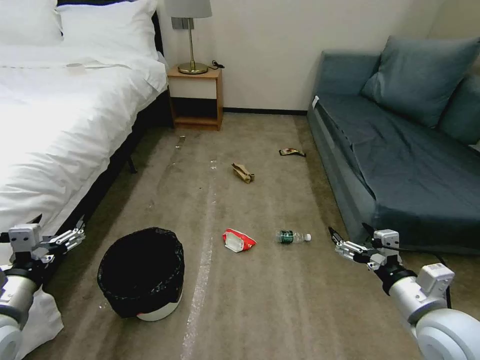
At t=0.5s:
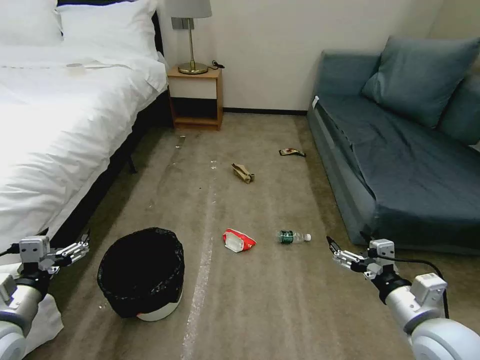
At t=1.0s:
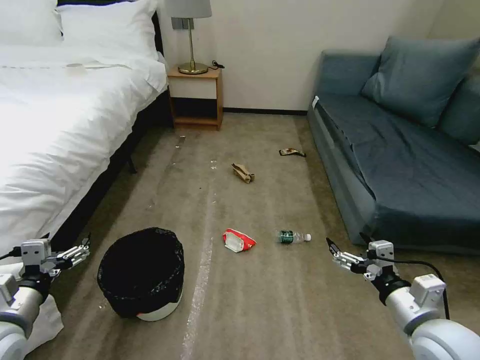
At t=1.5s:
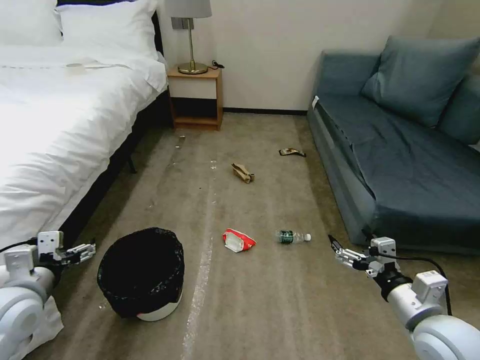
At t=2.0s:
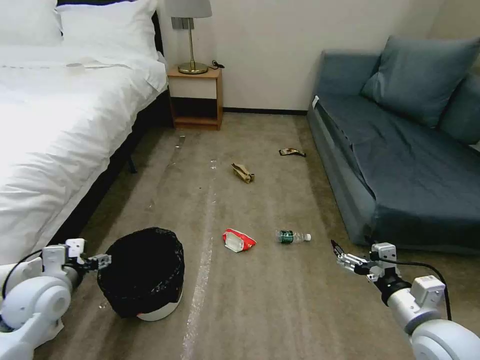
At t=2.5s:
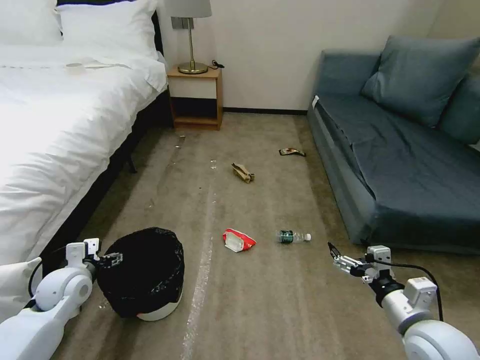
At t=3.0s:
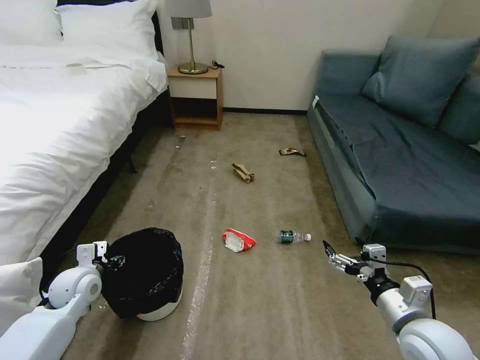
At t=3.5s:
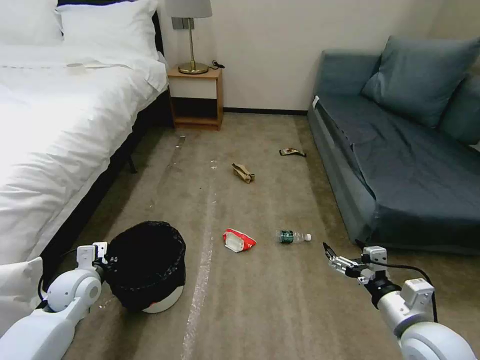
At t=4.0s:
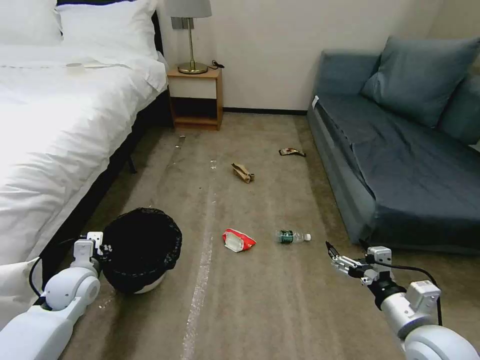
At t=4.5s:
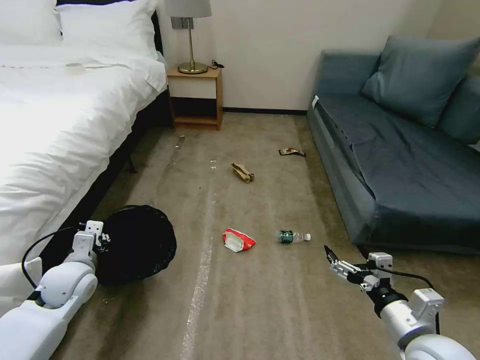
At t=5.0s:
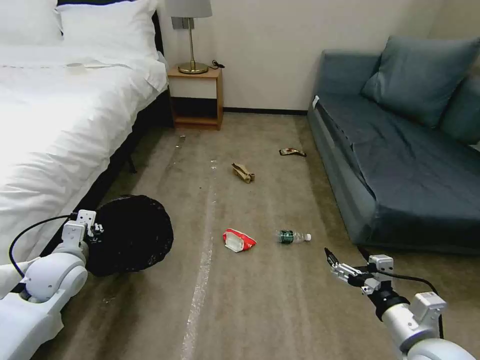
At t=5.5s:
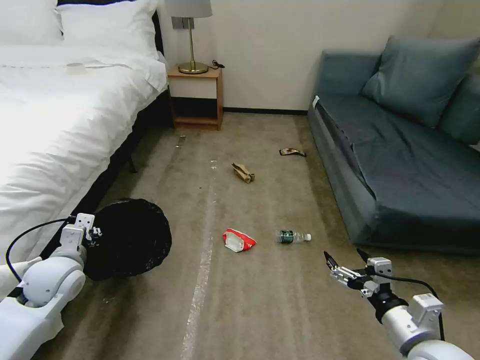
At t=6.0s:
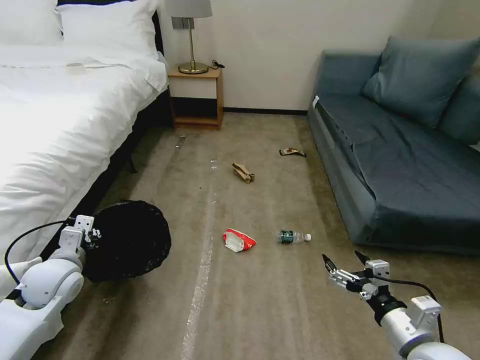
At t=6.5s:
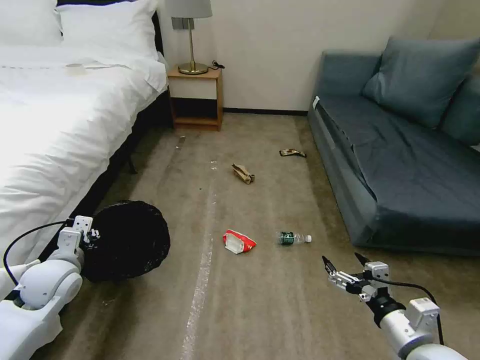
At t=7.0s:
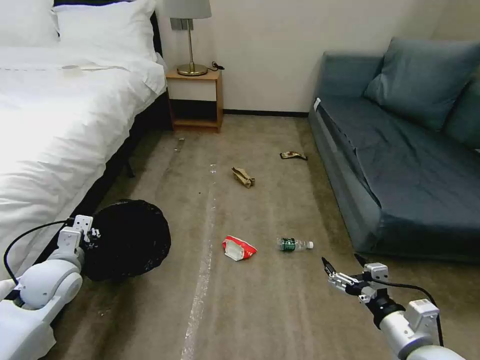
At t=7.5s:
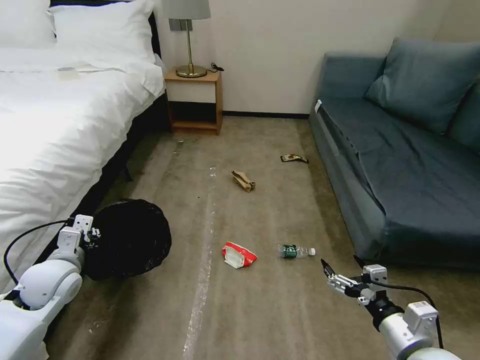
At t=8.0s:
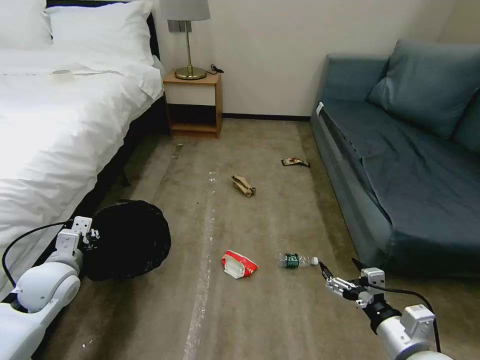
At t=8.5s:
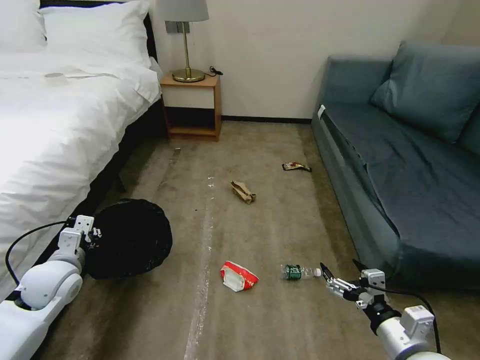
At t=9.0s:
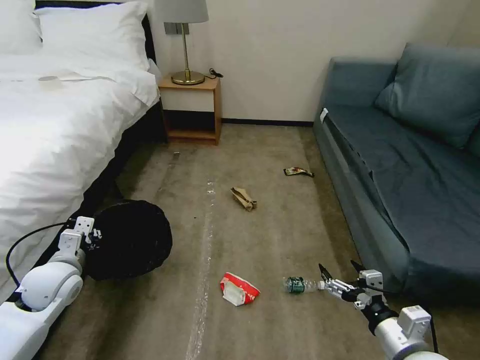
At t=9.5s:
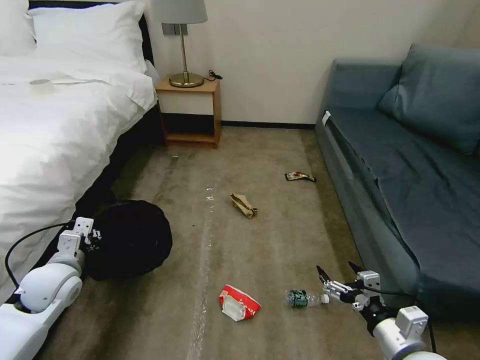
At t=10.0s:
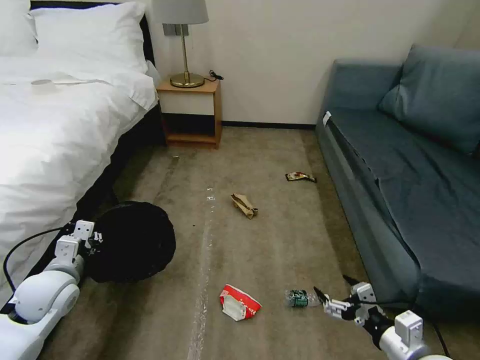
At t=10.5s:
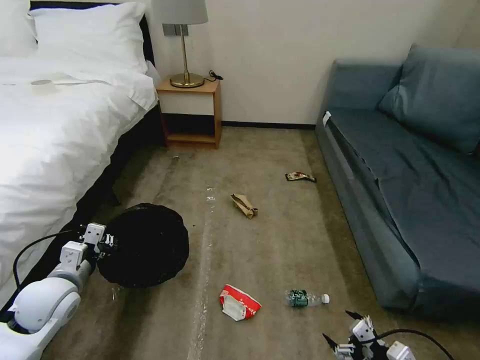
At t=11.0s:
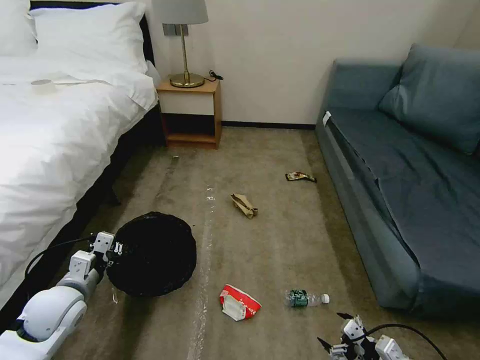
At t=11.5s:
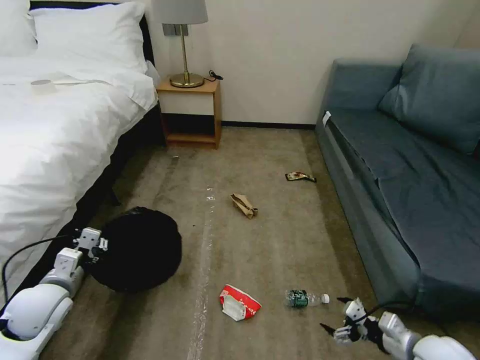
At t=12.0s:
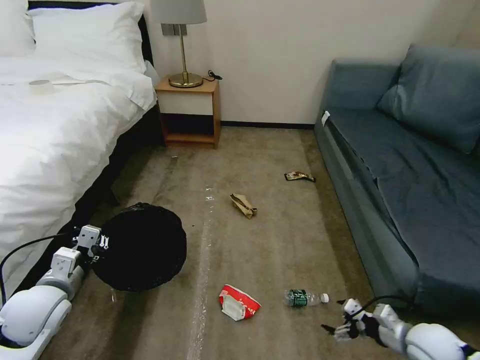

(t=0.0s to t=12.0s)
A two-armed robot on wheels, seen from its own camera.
Task of the whole recording: Pick up the trash bin, then pick up the garbage on the floor and place it into the trash bin.
t=2.0s - t=4.0s: The left gripper is displaced downward by roughly 5 cm, and closes.
t=4.0s - t=6.0s: The left gripper travels upward by some 5 cm.
t=6.0s - t=8.0s: There are only small adjustments of the grippers.
t=10.0s - t=12.0s: The right gripper goes about 15 cm downward, to the right and forward.

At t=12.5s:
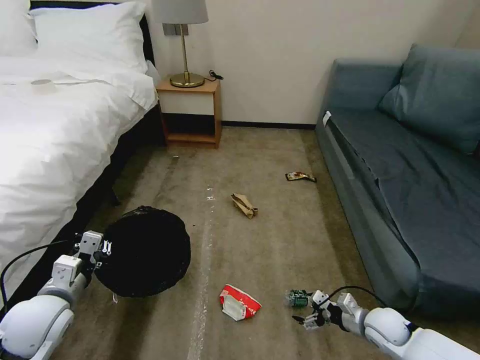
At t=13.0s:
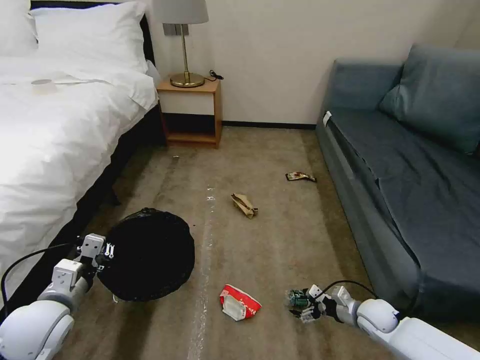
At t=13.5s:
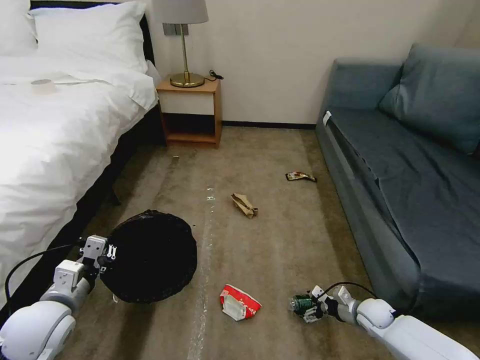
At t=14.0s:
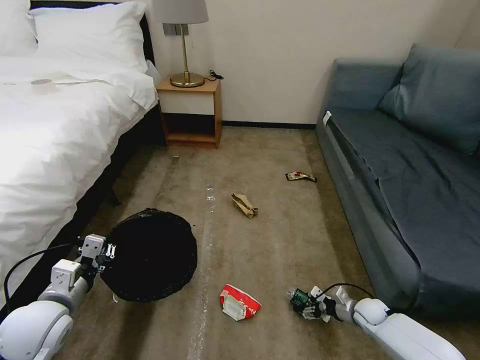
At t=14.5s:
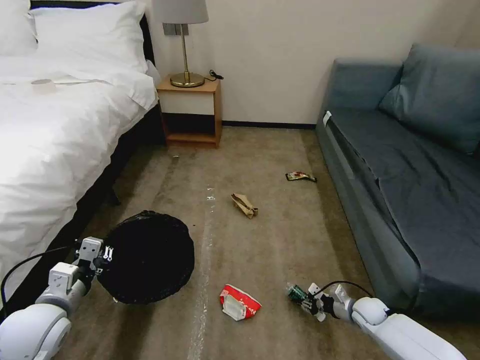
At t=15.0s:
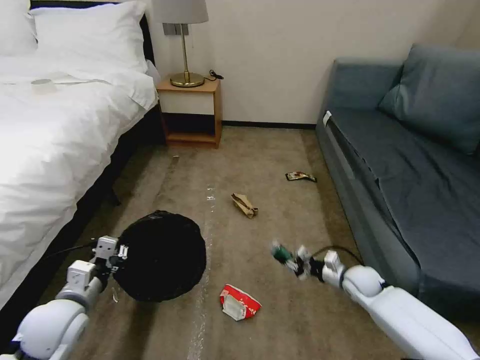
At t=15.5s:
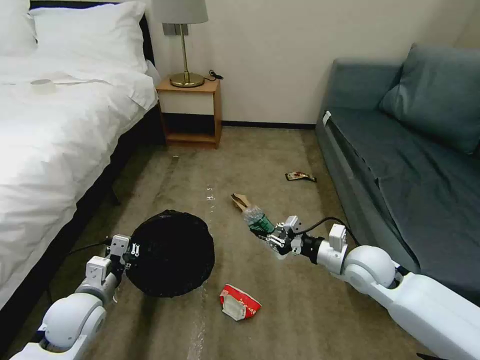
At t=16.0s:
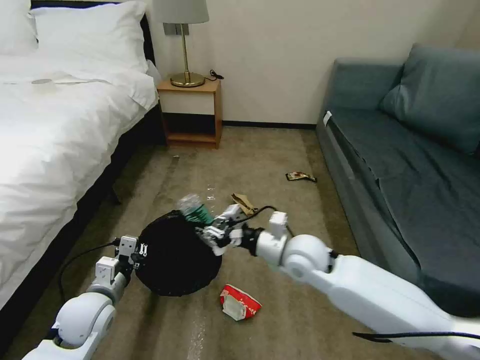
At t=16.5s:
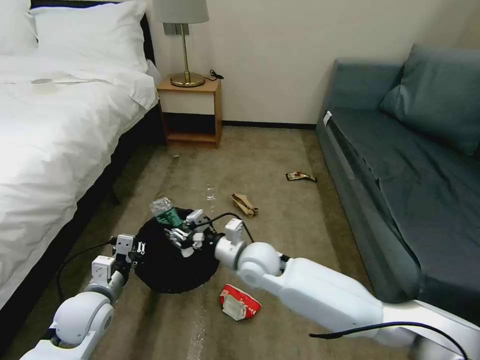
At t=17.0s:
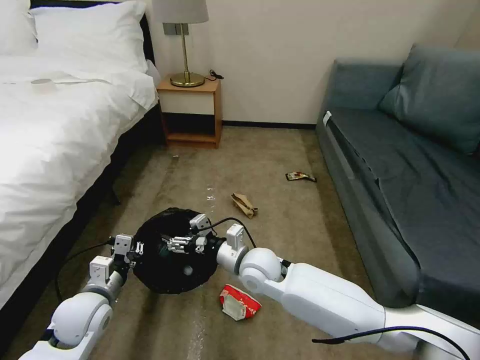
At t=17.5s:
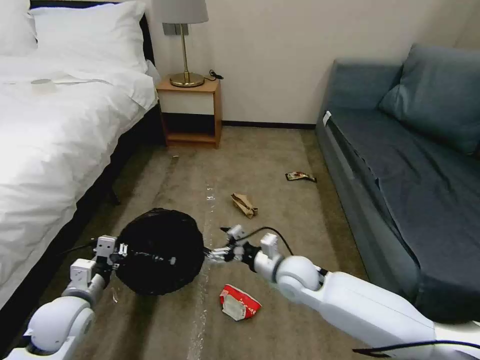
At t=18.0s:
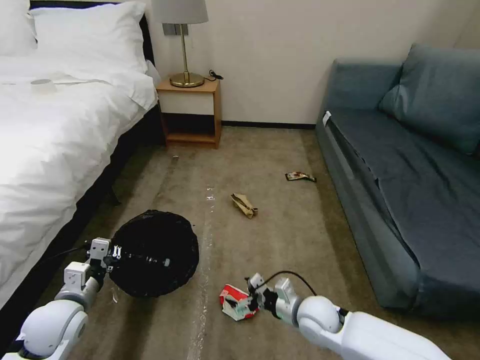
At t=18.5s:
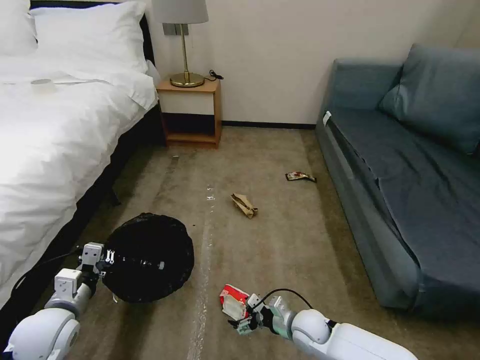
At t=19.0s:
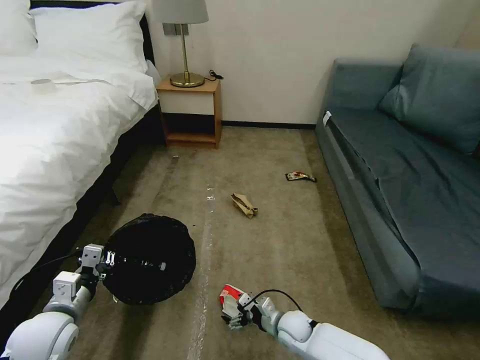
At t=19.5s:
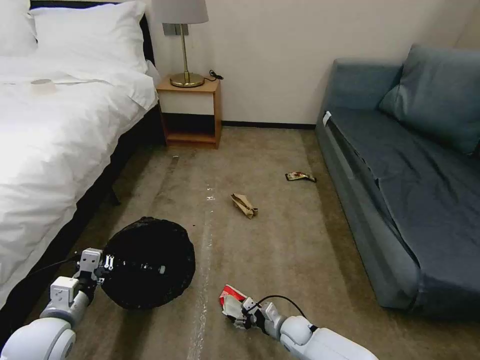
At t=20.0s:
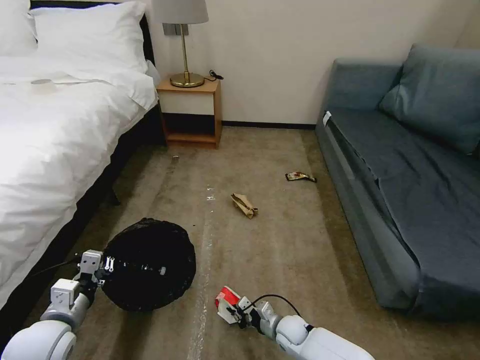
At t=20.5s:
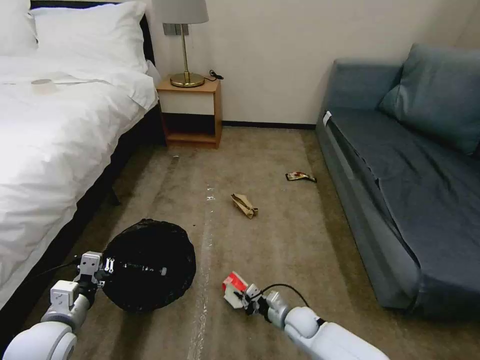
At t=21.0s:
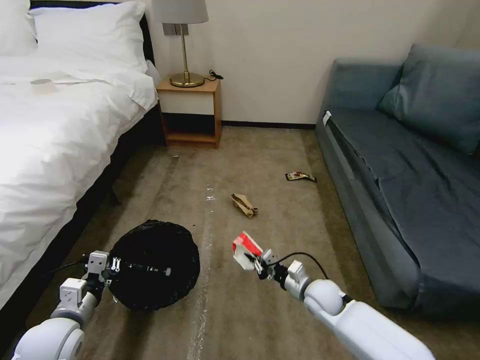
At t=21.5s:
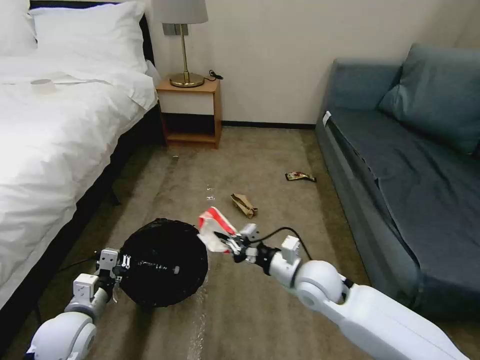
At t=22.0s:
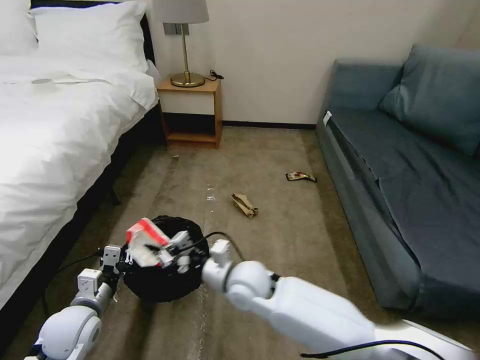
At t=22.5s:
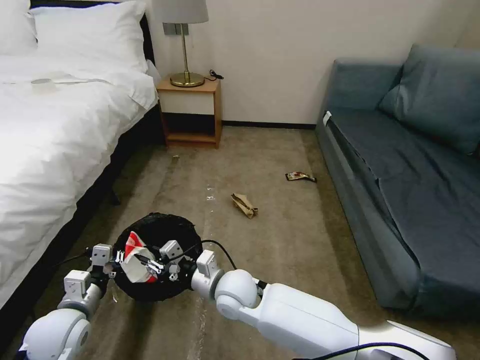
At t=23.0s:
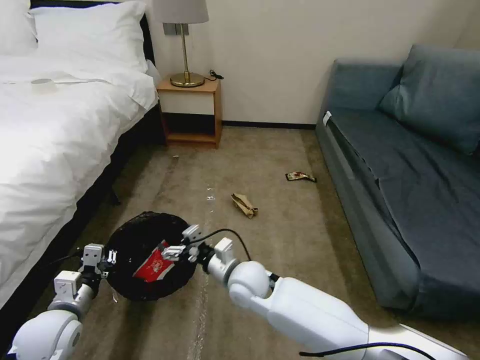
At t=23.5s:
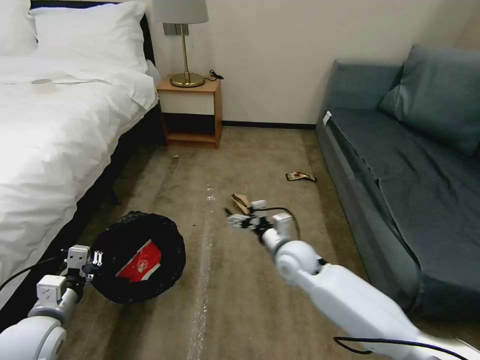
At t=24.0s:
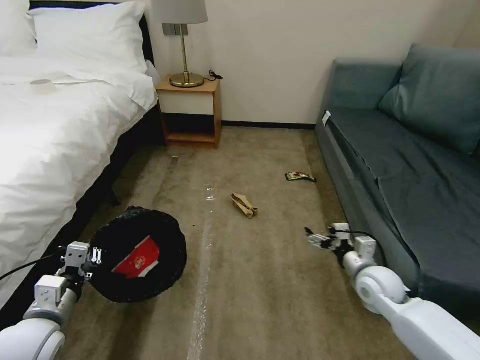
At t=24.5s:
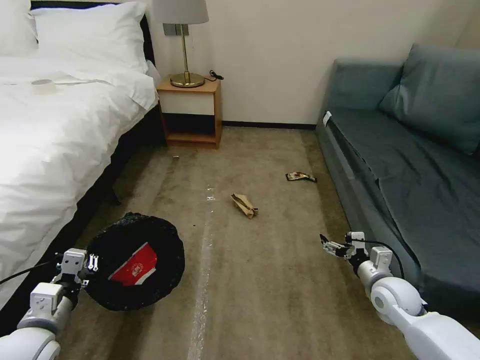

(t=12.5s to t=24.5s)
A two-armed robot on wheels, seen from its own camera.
Task of the whole recording: Pick up the trash bin, then pick up the garbage on the floor and place it into the trash bin.
t=12.5s - t=14.5s: The right gripper travels downward and forward by about 10 cm, and closes up.
t=14.5s - t=16.5s: The left gripper changes place by roughly 10 cm; the right gripper moves to the left and upward, roughly 40 cm.
t=16.5s - t=18.5s: The left gripper travels to the left by roughly 5 cm. Meanwhile the right gripper moves downward, to the right and backward, about 25 cm, and opens its fingers.
t=18.5s - t=20.5s: The right gripper goes about 5 cm downward, and closes up.
t=20.5s - t=22.5s: The right gripper goes roughly 30 cm upward and to the left.
t=22.5s - t=24.5s: The left gripper shifts by about 5 cm, while the right gripper shifts approximately 40 cm to the right, and opens its fingers.

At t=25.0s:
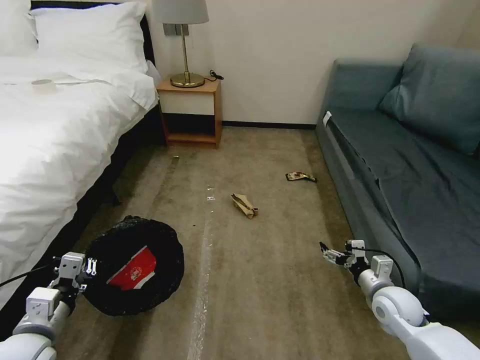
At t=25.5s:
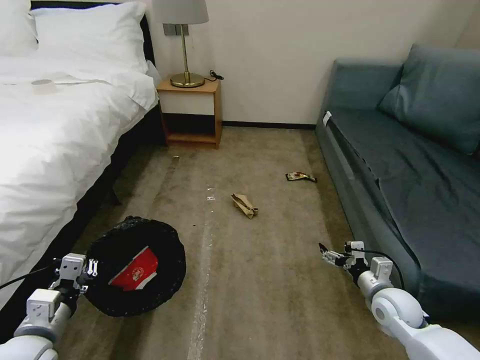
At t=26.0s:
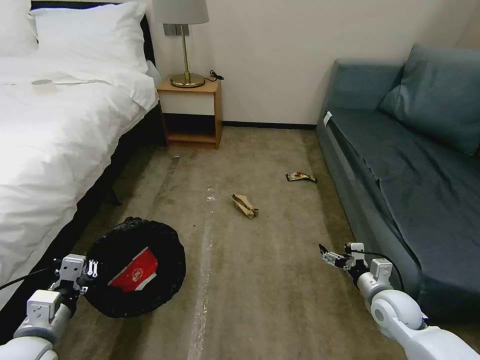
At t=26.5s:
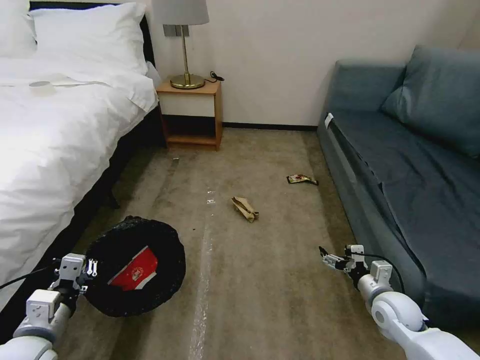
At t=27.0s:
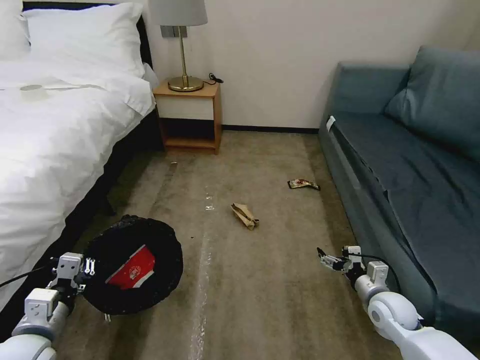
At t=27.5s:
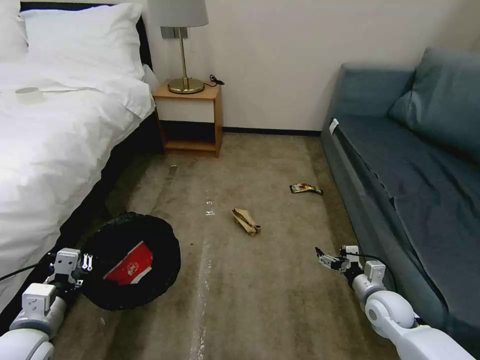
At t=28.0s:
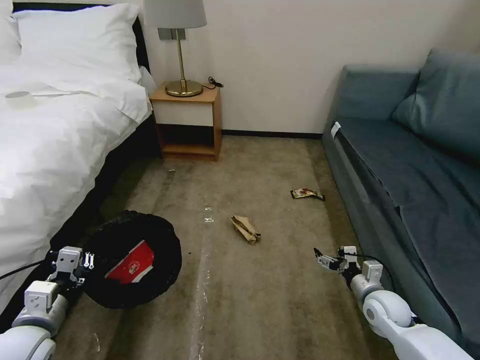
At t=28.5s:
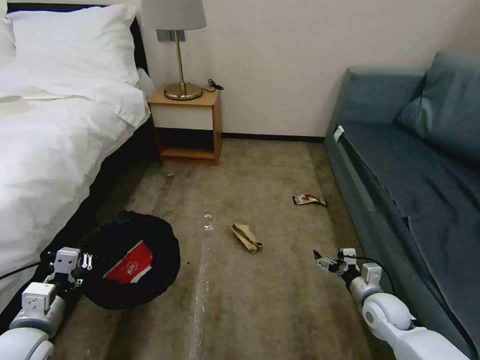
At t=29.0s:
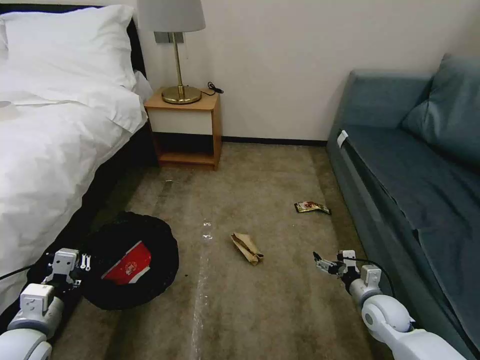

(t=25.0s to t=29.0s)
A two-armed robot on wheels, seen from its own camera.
Task of the whole recording: Pick up the trash bin, then pick up the garbage on the floor and place it into the trash bin.
t=25.0s - t=27.0s: The grippers stay close to where they were, moving slightly.
